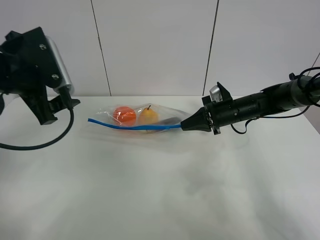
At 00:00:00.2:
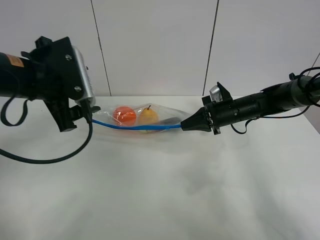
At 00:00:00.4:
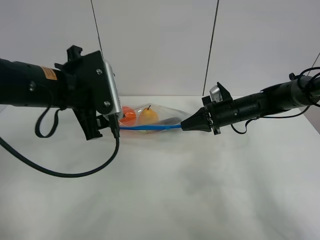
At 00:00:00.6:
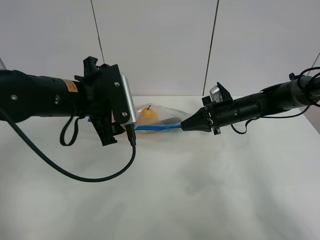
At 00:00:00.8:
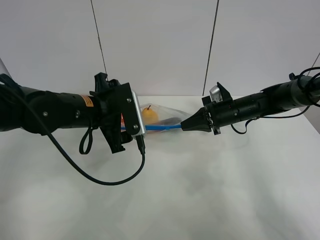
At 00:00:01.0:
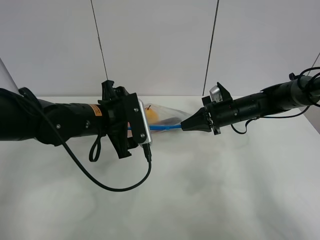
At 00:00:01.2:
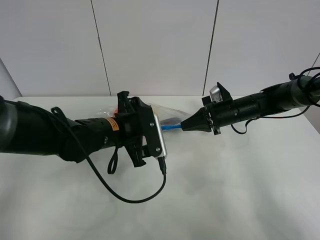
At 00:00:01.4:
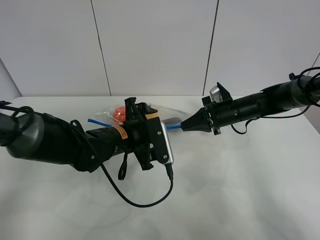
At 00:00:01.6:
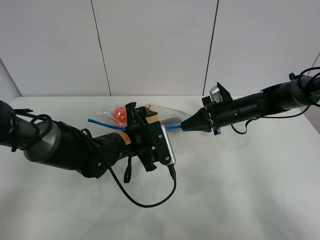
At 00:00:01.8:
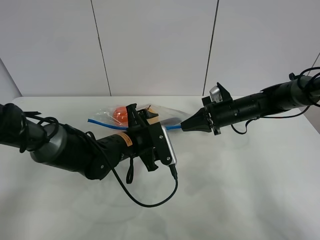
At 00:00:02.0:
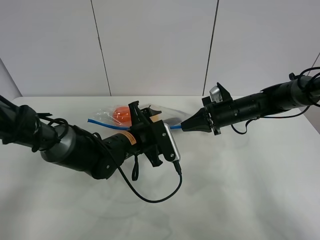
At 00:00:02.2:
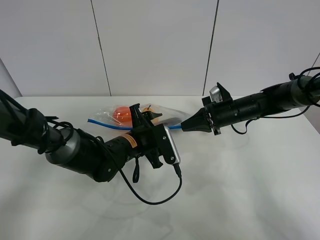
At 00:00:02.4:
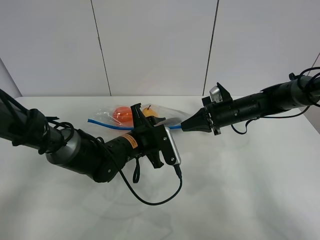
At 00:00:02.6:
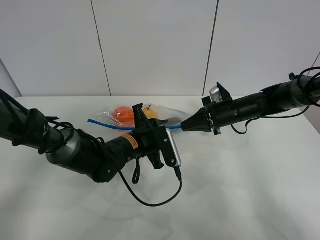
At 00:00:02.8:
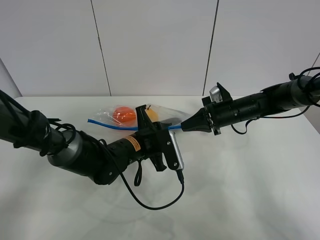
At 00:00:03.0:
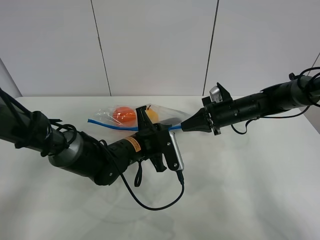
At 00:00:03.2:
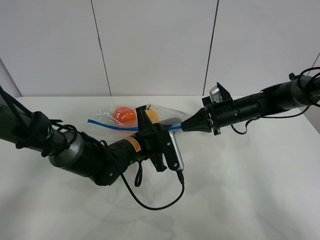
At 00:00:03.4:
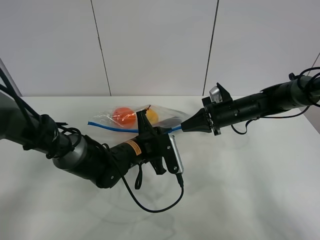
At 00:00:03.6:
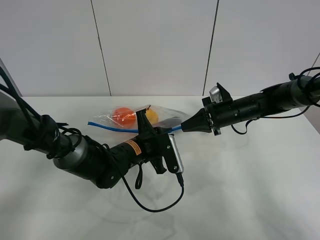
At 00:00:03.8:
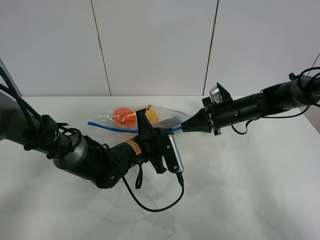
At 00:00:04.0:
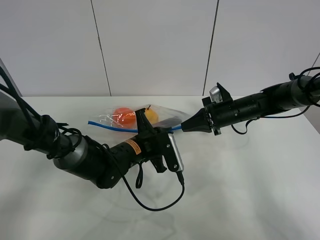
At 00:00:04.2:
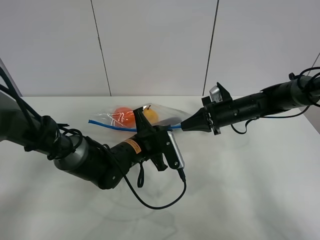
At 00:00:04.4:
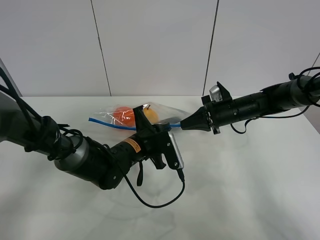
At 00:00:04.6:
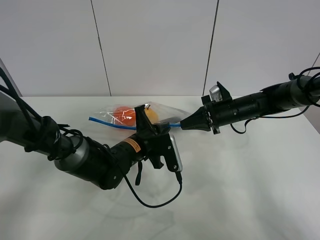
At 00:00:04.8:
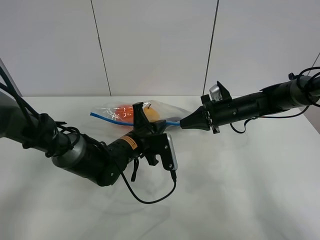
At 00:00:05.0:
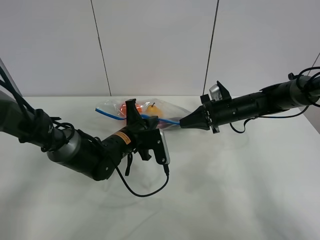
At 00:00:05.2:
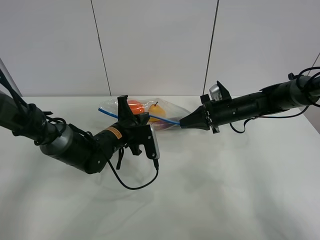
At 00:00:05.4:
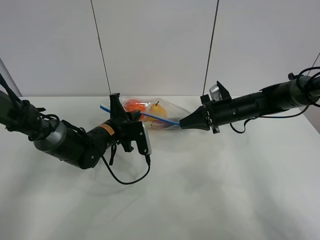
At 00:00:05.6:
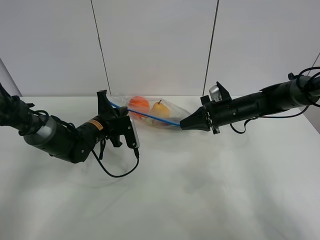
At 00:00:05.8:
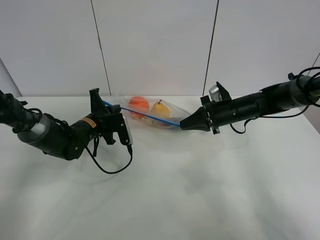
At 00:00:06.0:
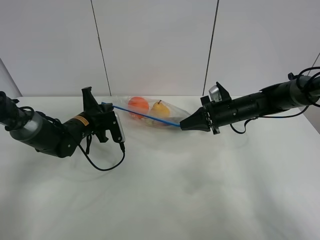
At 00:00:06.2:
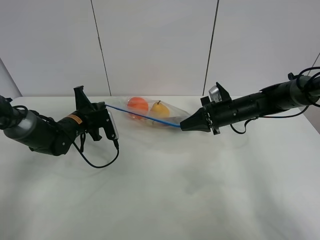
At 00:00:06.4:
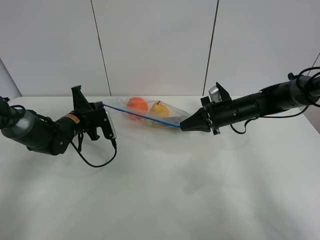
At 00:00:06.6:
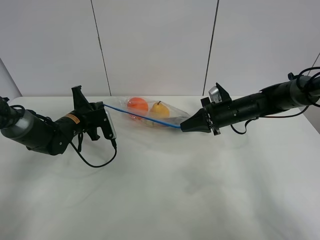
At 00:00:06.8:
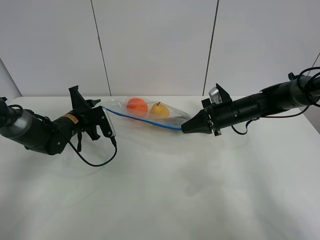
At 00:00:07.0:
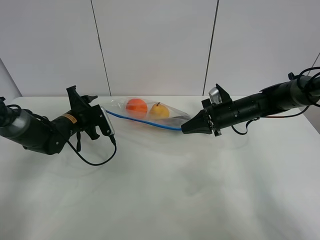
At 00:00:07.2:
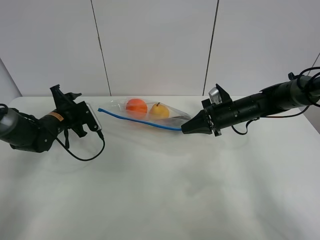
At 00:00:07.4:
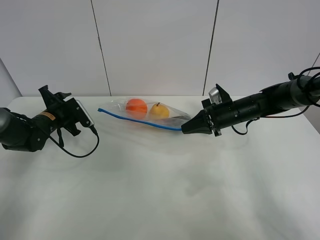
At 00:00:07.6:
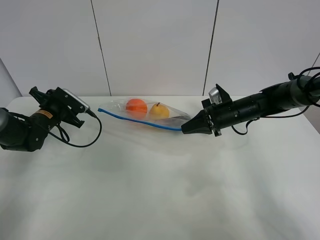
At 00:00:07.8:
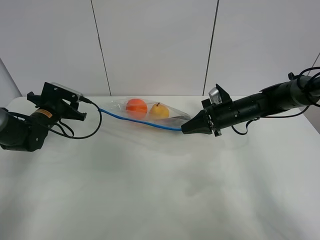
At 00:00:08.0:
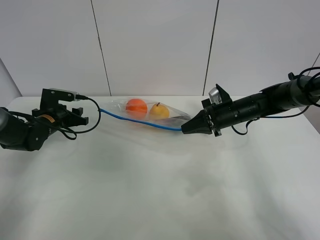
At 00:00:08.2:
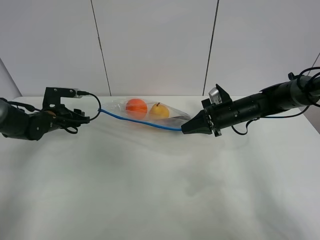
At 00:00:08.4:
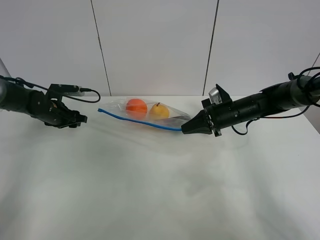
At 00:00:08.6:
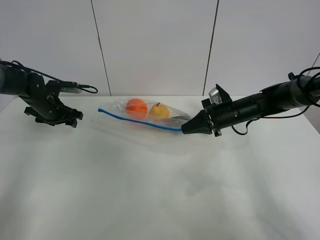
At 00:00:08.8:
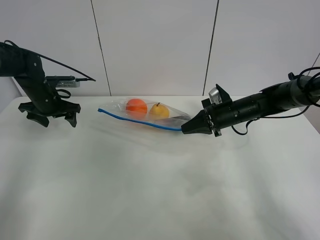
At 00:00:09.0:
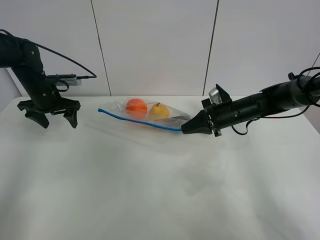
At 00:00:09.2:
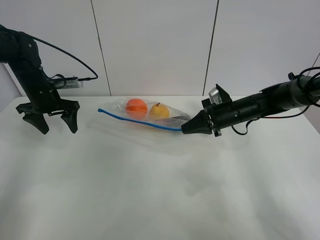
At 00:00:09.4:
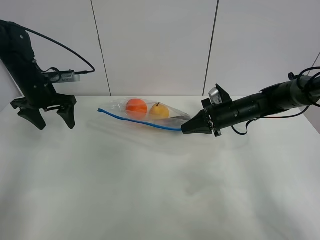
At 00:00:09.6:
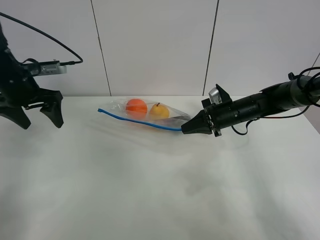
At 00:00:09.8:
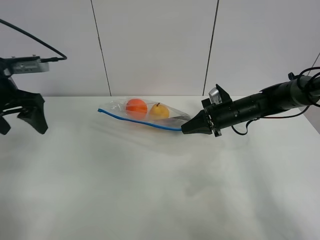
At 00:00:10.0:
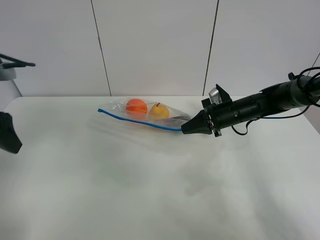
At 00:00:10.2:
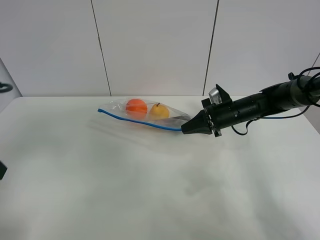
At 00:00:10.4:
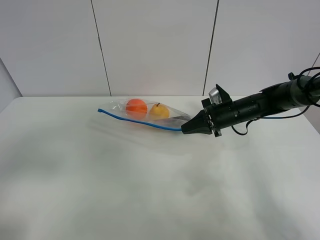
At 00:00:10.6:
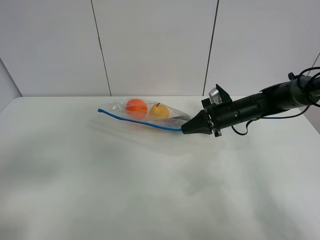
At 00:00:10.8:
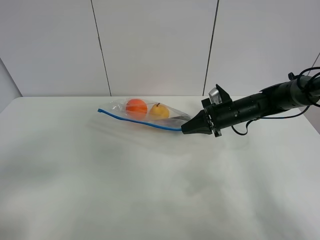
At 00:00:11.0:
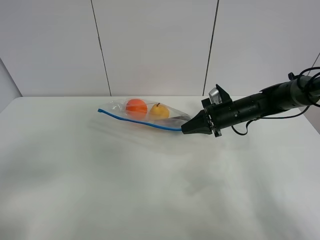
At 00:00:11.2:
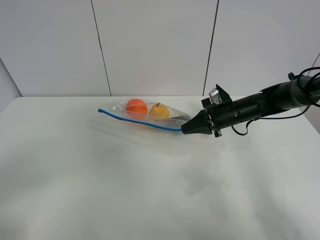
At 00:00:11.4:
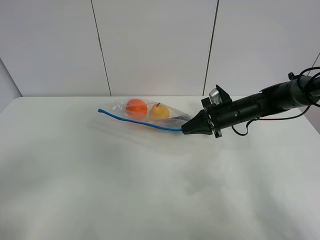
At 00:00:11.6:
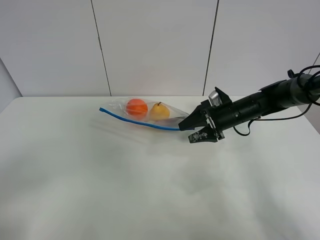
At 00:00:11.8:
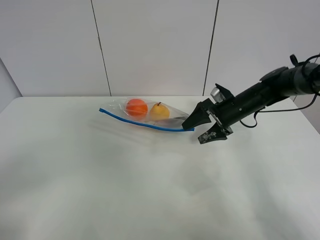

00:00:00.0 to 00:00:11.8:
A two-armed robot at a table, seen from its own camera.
Step, 00:00:00.0 to 00:00:07.0: Pull the fruit bag with left gripper.
00:00:00.0 to 00:00:01.4: The left gripper is displaced downward and to the right by some 20 cm.
00:00:01.4 to 00:00:03.0: The left gripper closes.
00:00:03.0 to 00:00:04.4: The grippers make only small movements.
00:00:04.4 to 00:00:06.0: The left gripper travels to the left and forward by approximately 15 cm.
00:00:06.0 to 00:00:07.4: The left gripper goes some 10 cm to the left, and opens up.
00:00:07.4 to 00:00:08.8: The left gripper goes some 5 cm upward.
00:00:08.8 to 00:00:10.4: The left gripper moves backward, approximately 35 cm.
00:00:10.4 to 00:00:11.8: The left gripper travels backward by about 10 cm. Meanwhile the right gripper opens its fingers.

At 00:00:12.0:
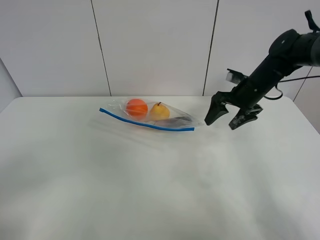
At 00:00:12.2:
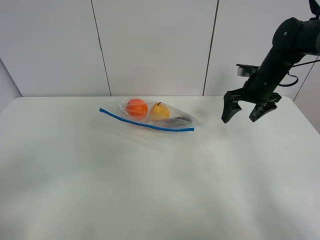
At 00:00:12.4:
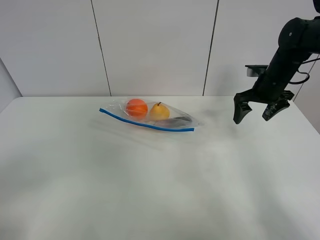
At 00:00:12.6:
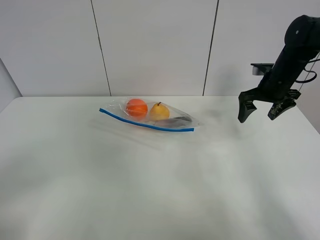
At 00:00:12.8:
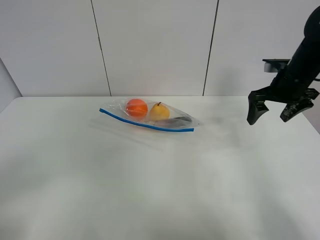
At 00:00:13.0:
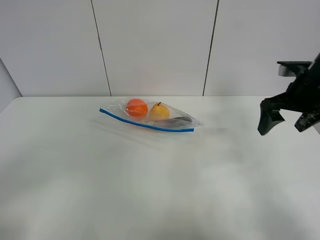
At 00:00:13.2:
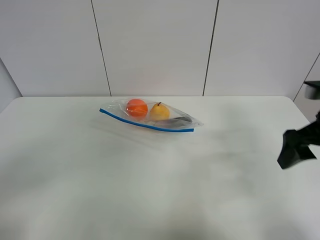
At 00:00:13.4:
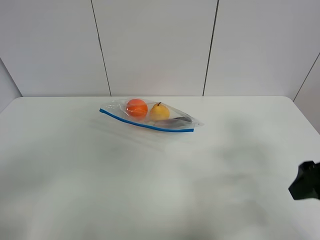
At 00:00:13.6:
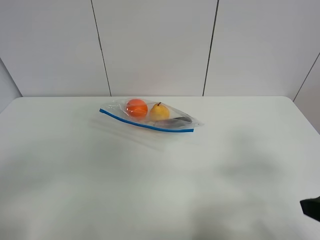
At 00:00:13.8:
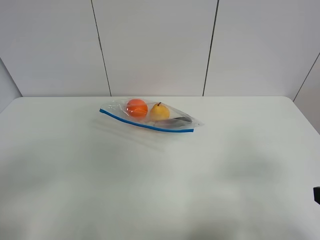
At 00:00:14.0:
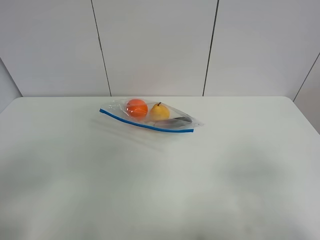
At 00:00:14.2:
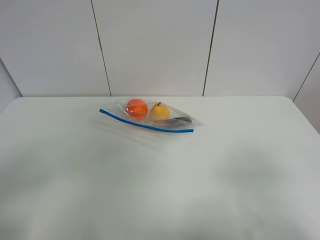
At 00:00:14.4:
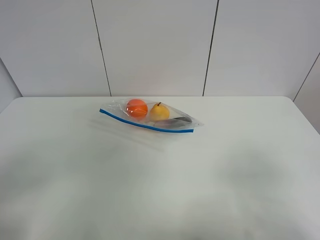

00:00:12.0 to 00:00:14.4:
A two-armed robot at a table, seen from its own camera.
00:00:12.0 to 00:00:13.2: The right gripper heads backward, covering about 20 cm.
00:00:13.2 to 00:00:14.4: The right gripper travels backward by about 20 cm.
